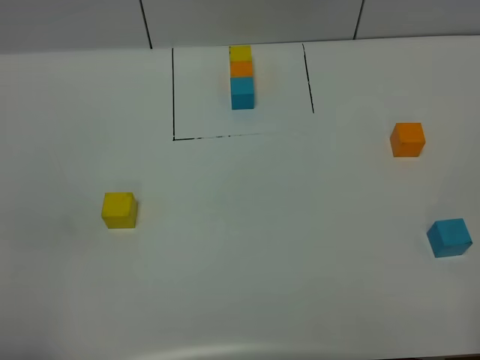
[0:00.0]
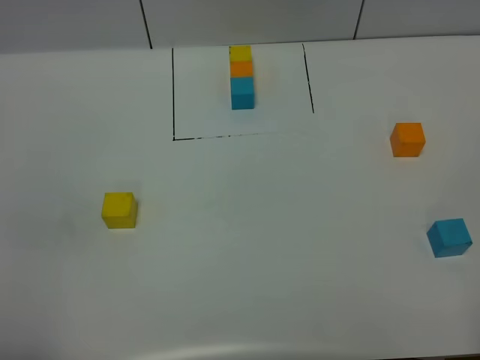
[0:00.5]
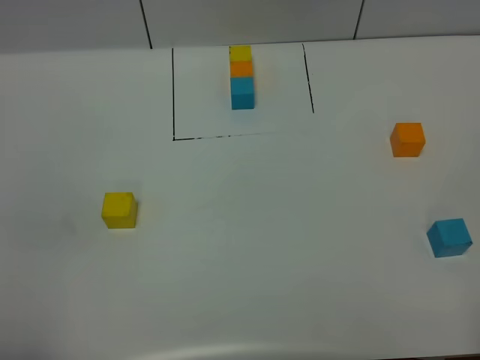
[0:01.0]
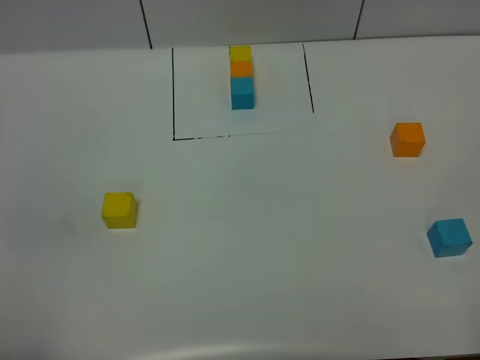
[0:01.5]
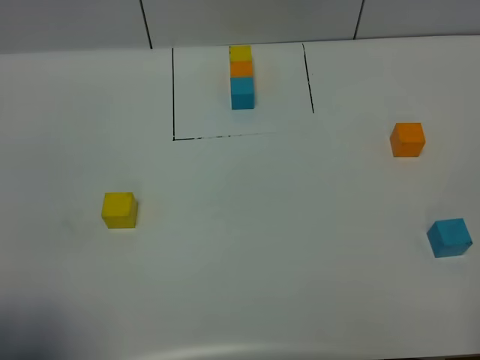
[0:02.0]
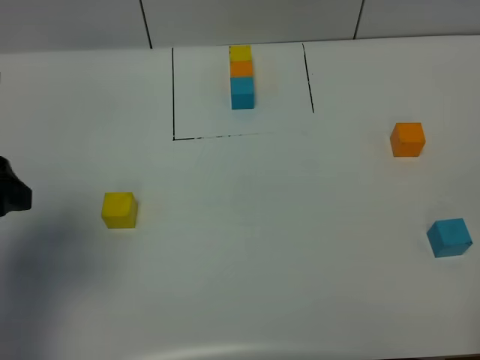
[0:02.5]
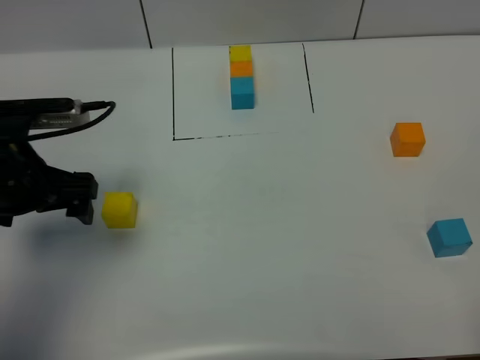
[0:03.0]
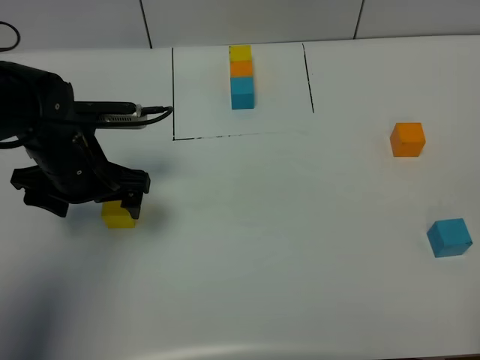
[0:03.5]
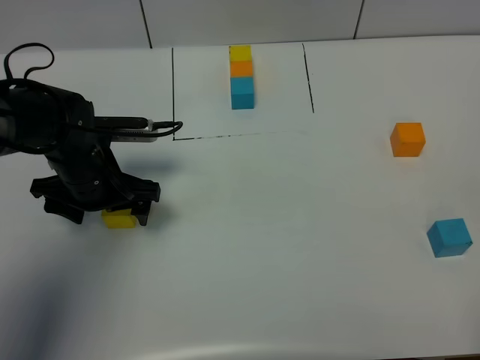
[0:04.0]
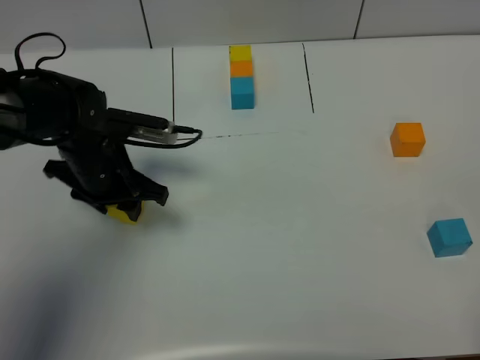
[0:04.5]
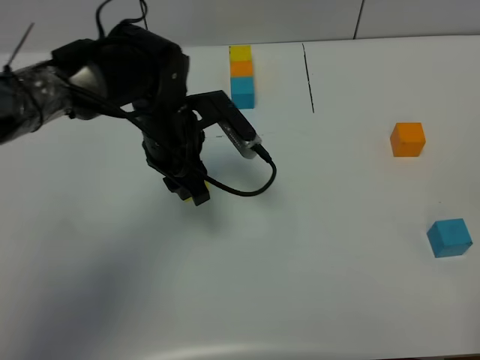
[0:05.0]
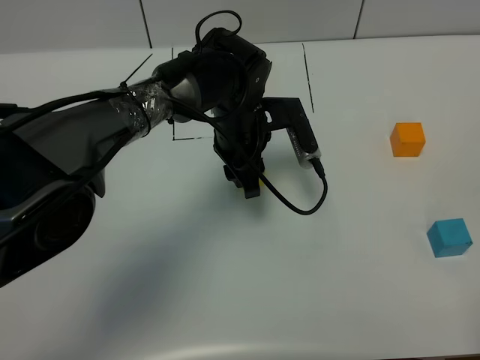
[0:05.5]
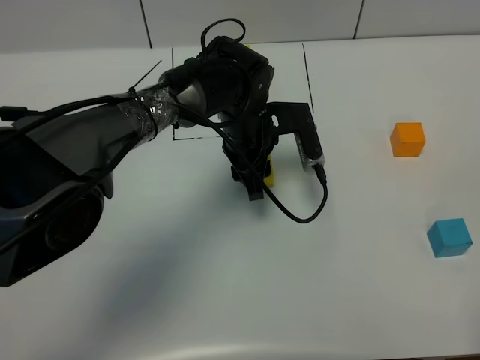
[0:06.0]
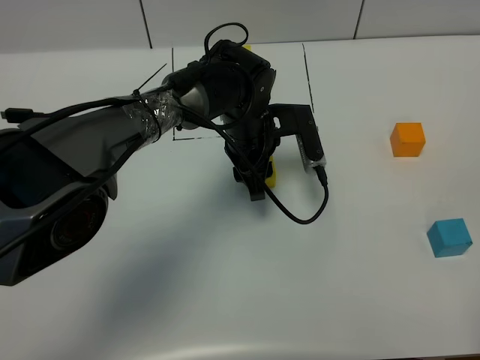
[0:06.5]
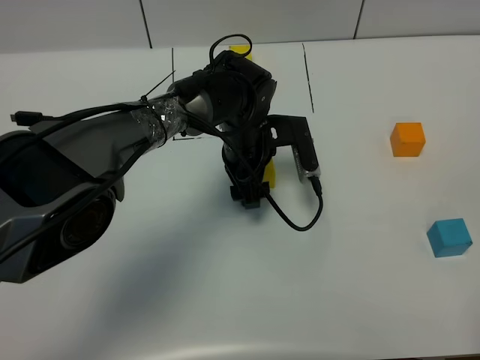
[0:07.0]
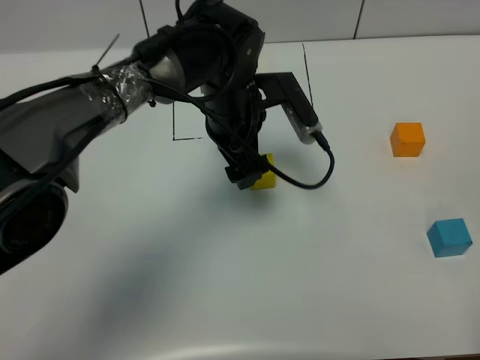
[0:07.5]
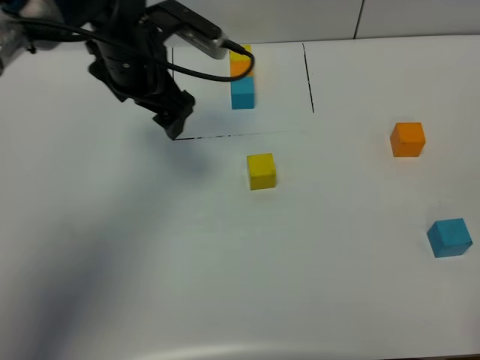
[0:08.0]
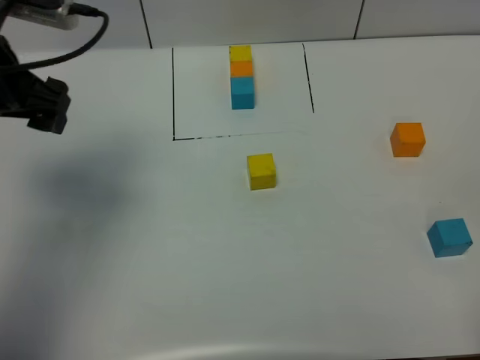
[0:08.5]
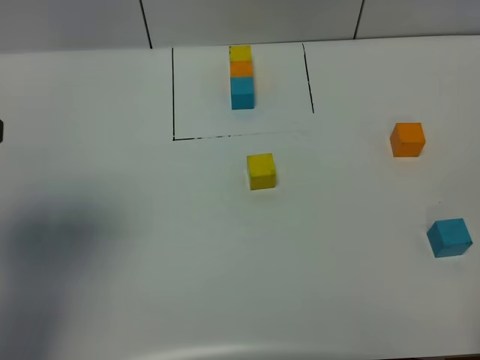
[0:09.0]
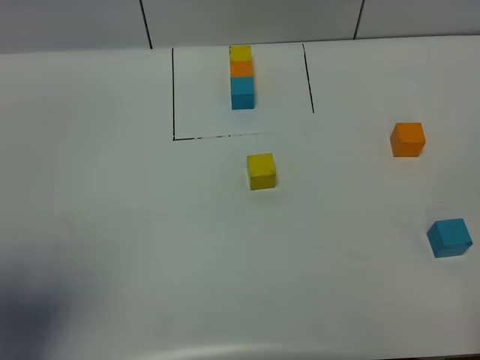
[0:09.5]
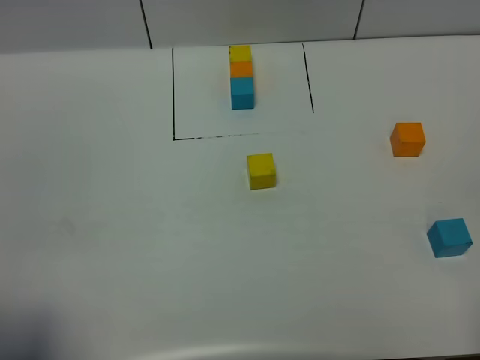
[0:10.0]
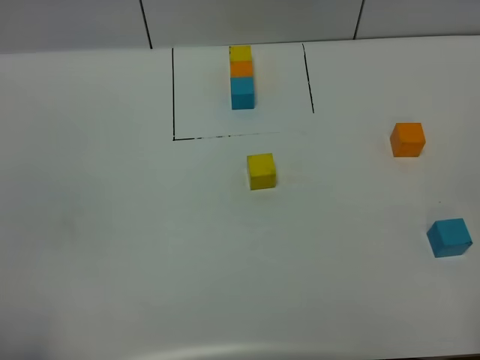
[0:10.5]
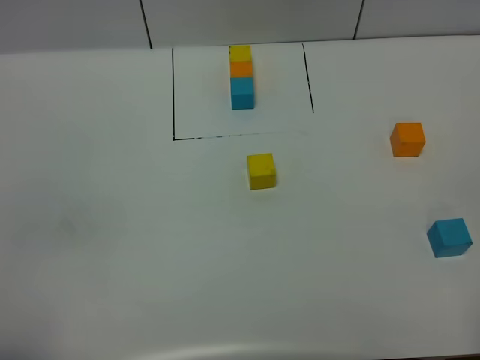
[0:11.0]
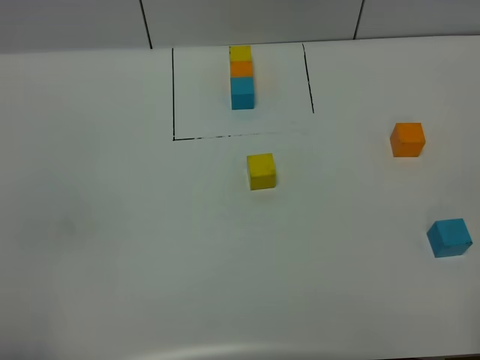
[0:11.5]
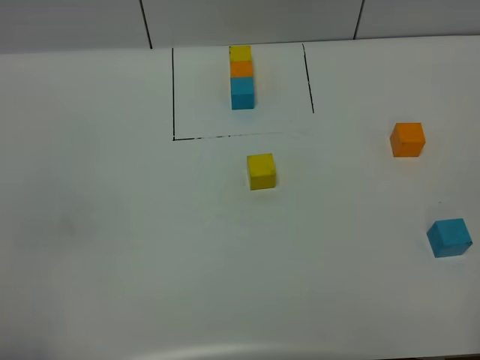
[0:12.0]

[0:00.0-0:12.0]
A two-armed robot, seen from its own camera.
Task of the whole recording: According to the building block template in front, assemble the scattered blocks together.
Step, 0:02.5 to 0:07.5: Put the yellow cube in the center of the table.
0:00.0 to 0:02.0: The left gripper is displaced forward by approximately 5 cm, and opens up.
0:02.0 to 0:04.0: The left gripper travels forward and downward by about 30 cm.
0:04.0 to 0:06.0: The left gripper travels to the right by approximately 20 cm, and closes.
0:06.0 to 0:08.0: The left gripper moves to the left and upward, approximately 20 cm, and opens up.
0:08.0 to 0:10.0: The left gripper travels backward and to the left by about 40 cm.
0:10.0 to 0:12.0: The left gripper ends up about 5 cm from where it was, and closes up.

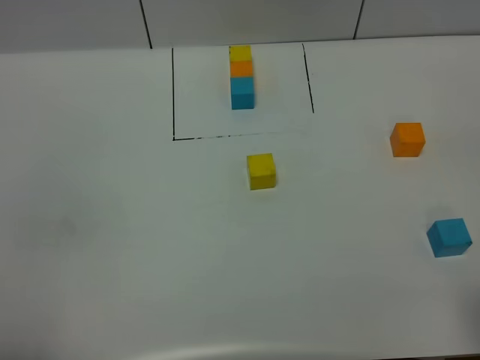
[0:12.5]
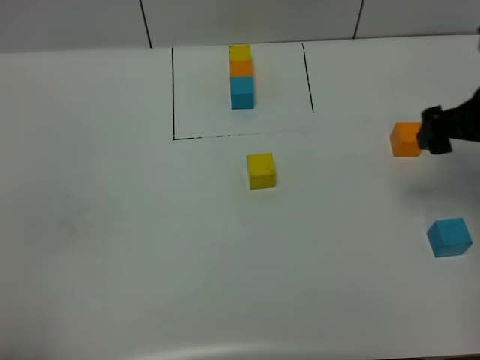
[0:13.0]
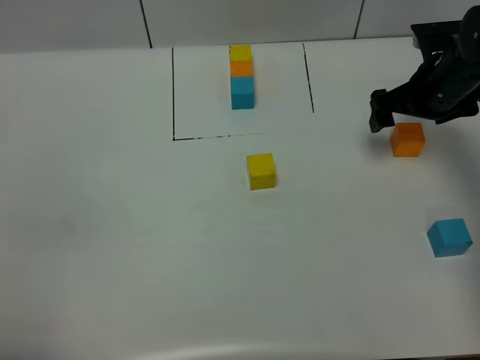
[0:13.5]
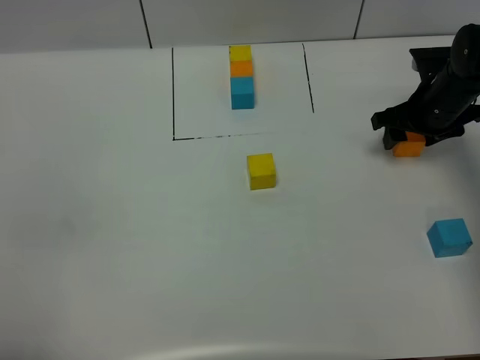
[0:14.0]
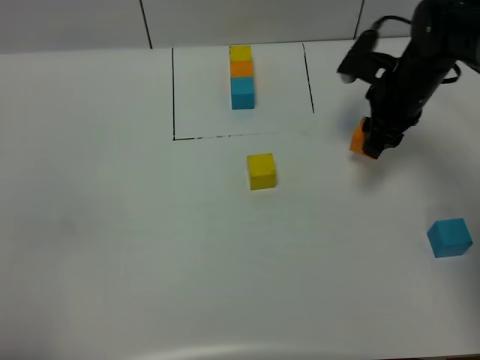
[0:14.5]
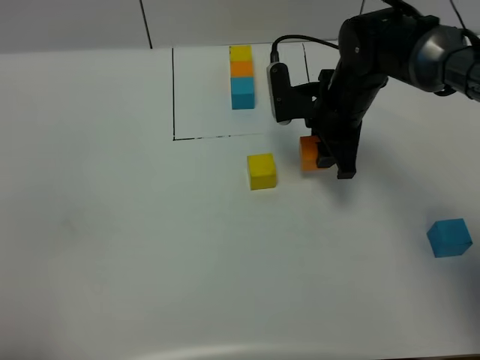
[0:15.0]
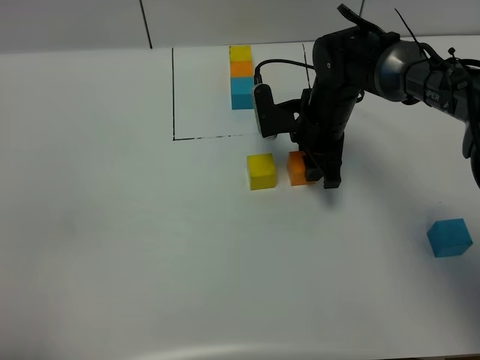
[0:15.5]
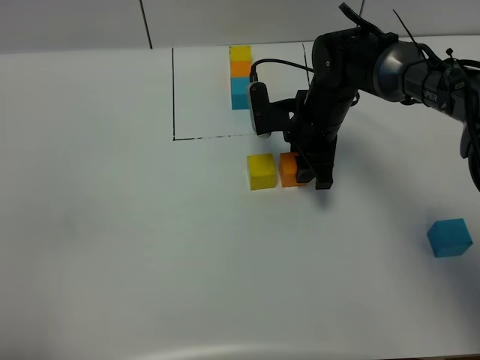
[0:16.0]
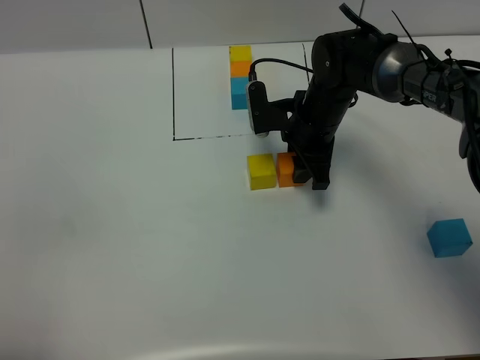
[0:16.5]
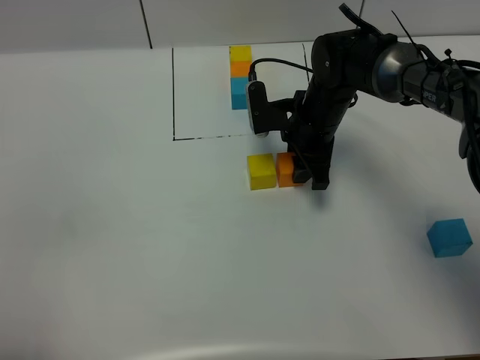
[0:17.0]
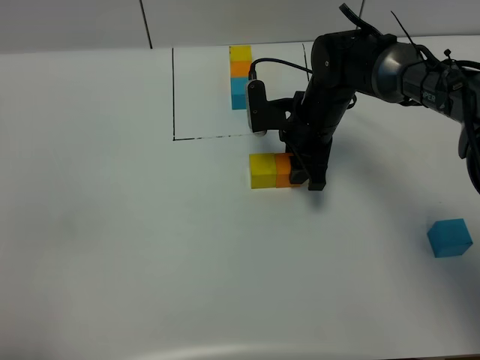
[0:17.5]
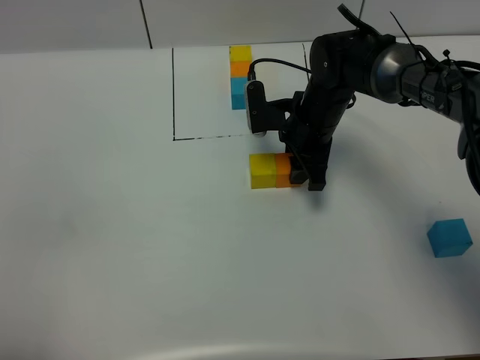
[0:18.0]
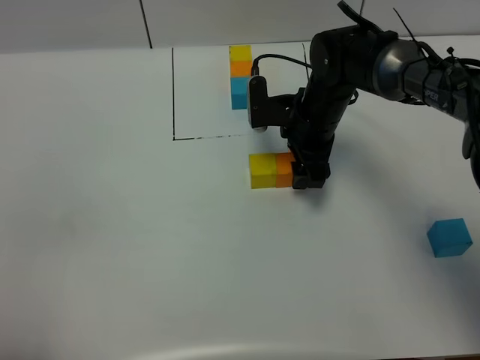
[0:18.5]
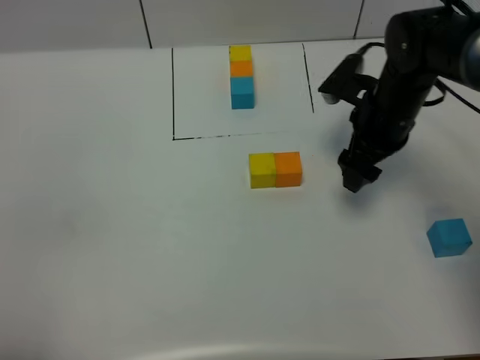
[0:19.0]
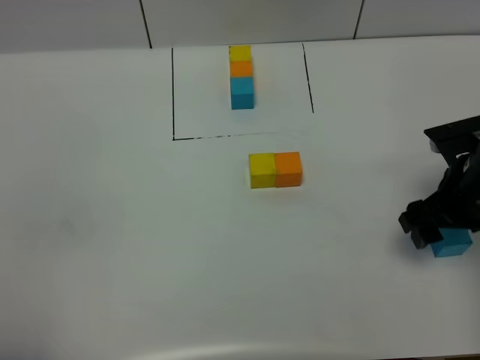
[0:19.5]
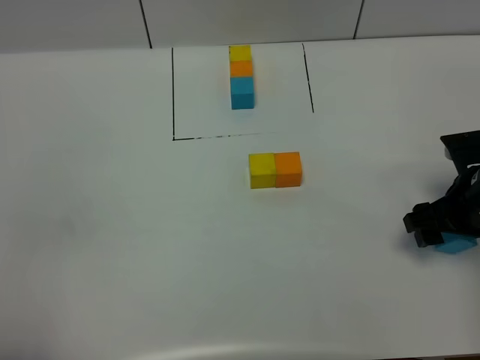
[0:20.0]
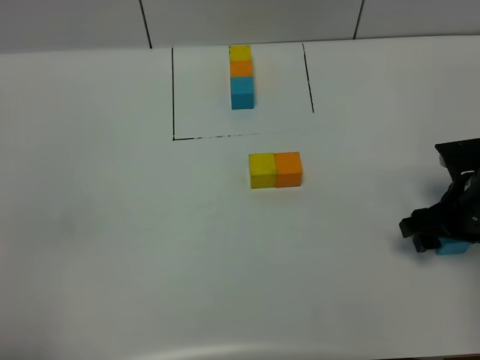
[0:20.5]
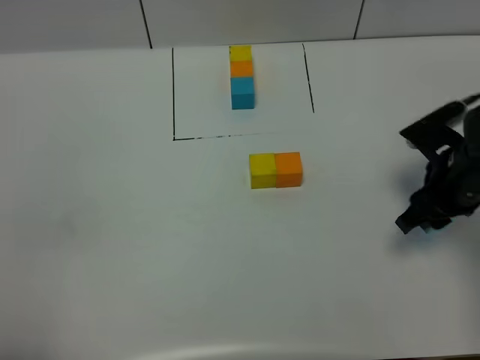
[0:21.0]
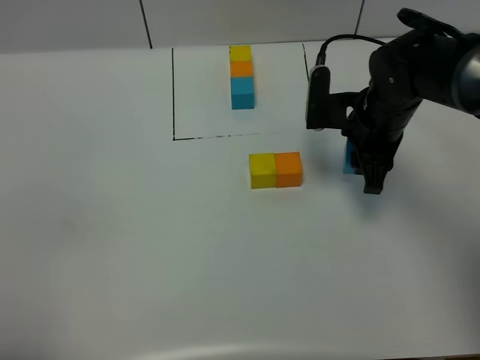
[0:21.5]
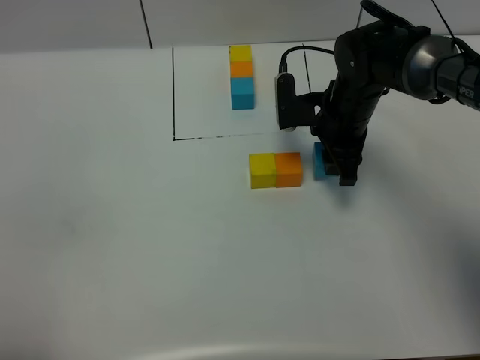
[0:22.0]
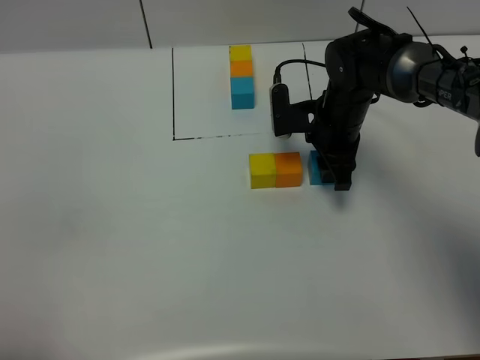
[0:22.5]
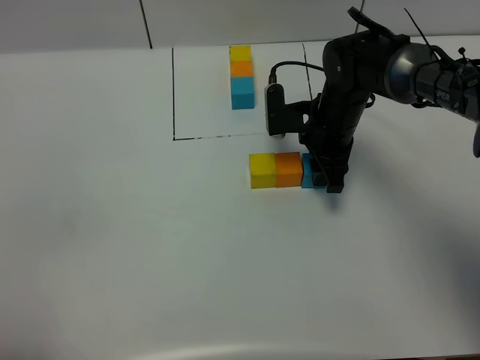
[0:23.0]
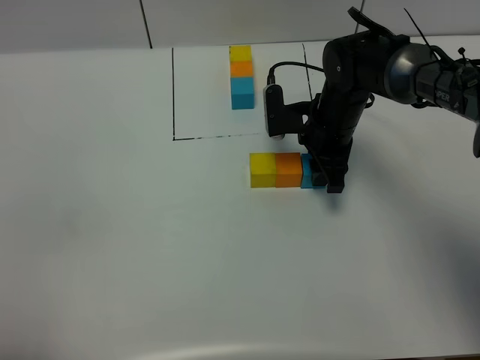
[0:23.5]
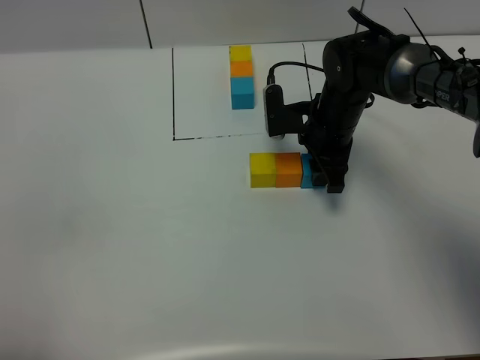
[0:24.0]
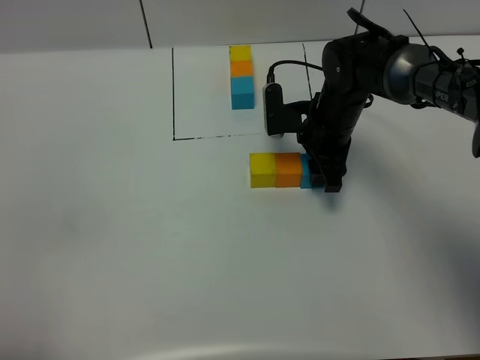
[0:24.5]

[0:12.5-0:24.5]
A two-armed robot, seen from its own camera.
Task of the whole recording: According to the building block template in front, assemble the scattered blocks together.
Step, 0:12.5 to 0:18.5: Put the orange cube on the right of the yellow cube.
0:12.5 to 0:14.5: The right gripper shifts approximately 35 cm forward, and closes up.
0:14.5 to 0:16.5: The right gripper goes roughly 10 cm to the left.
0:16.5 to 0:18.5: The right gripper opens.
0:18.5 to 0:20.5: The right gripper is displaced to the right and backward by approximately 20 cm.
0:20.5 to 0:22.5: The right gripper goes approximately 20 cm to the left and forward, and closes its fingers.
0:22.5 to 0:24.5: The two grippers keep their place.

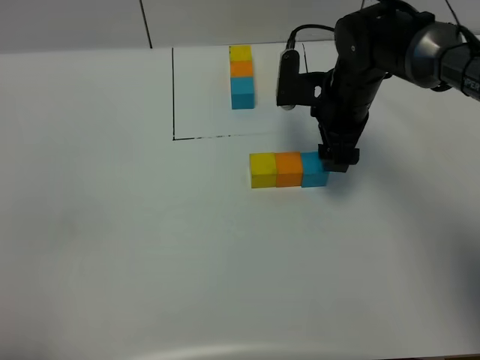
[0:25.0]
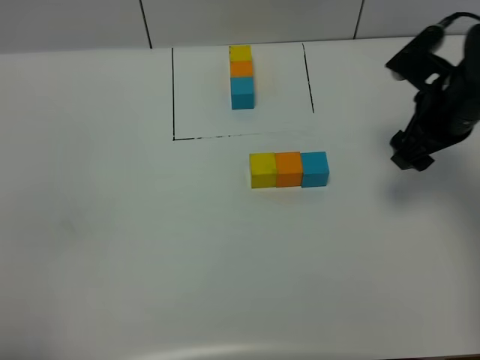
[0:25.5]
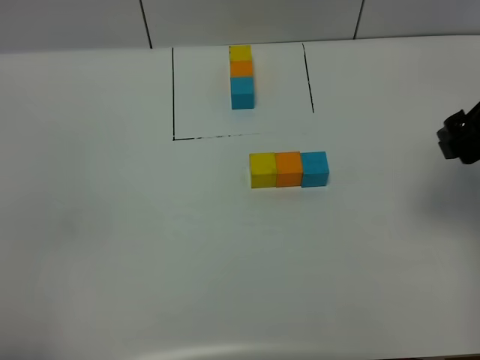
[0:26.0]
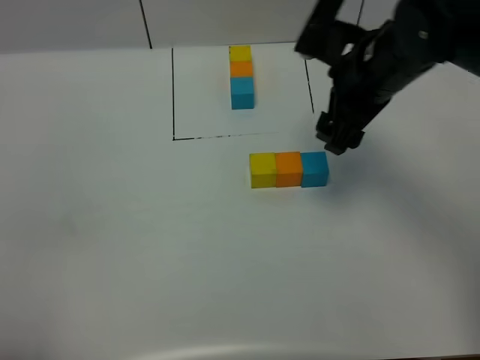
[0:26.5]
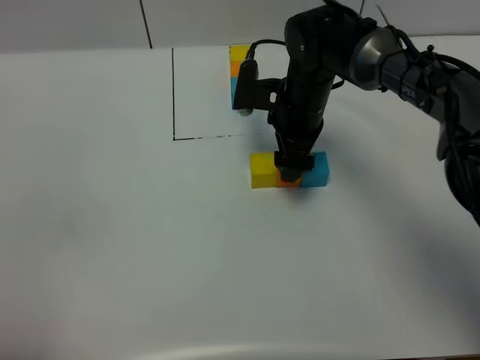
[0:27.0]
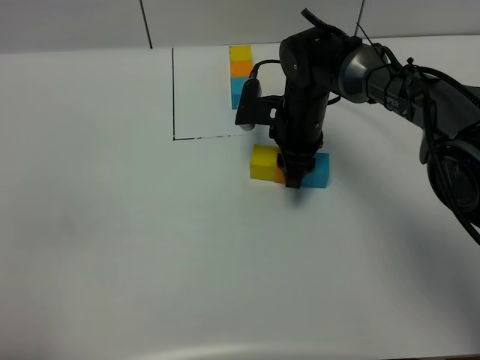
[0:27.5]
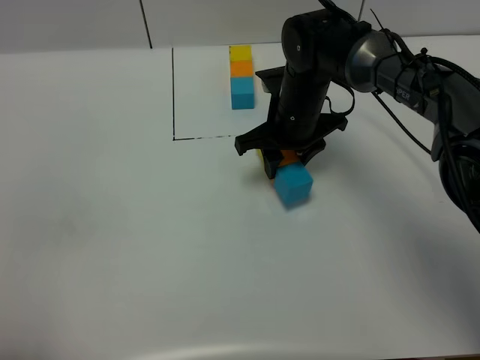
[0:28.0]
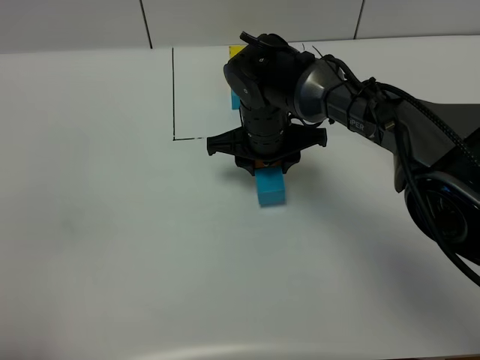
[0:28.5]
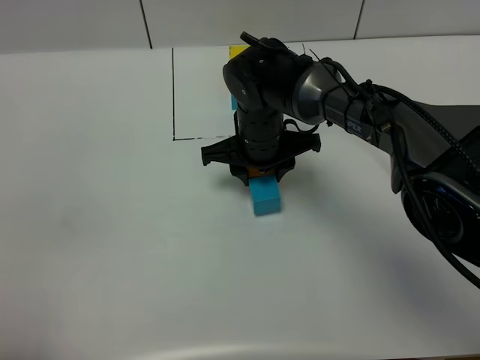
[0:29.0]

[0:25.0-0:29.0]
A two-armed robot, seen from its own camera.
Task of the whole recording: According to the building block template in front, assemble the scattered blocks together.
0:25.0 to 0:27.0: The right gripper goes to the right and returns, about 15 cm each way.
0:27.0 to 0:29.0: The right gripper is displaced to the left by some 5 cm, and closes.
